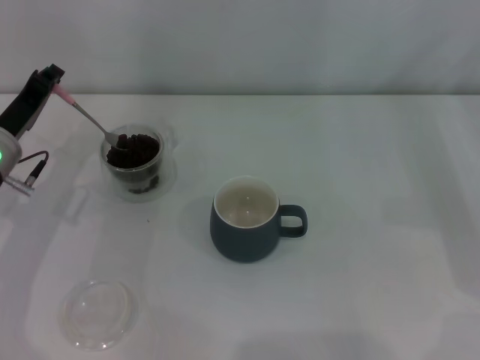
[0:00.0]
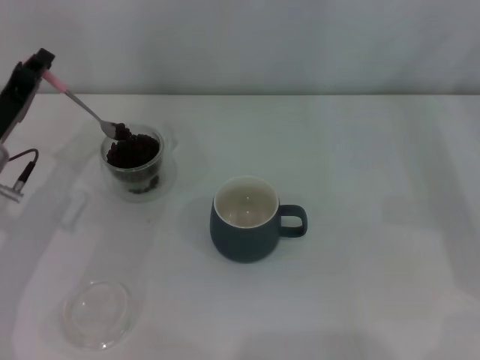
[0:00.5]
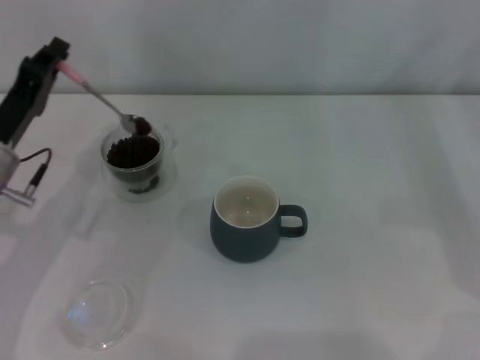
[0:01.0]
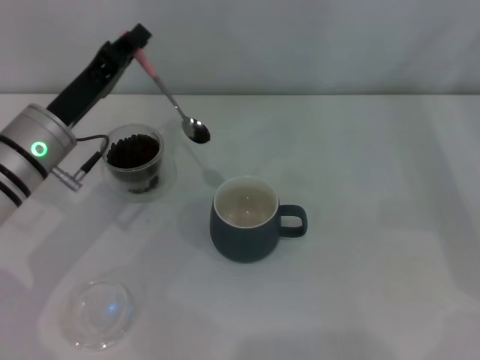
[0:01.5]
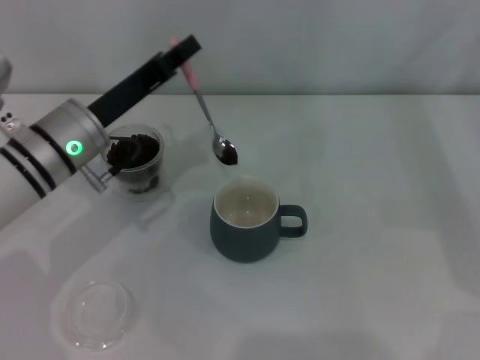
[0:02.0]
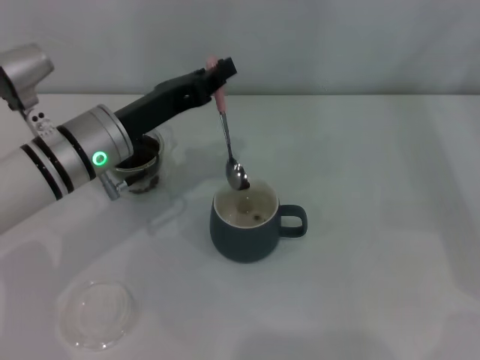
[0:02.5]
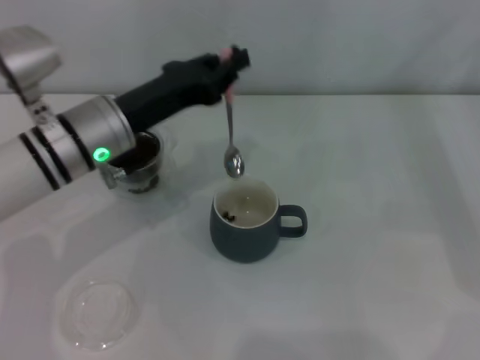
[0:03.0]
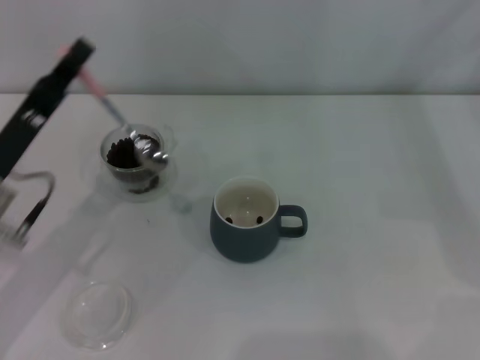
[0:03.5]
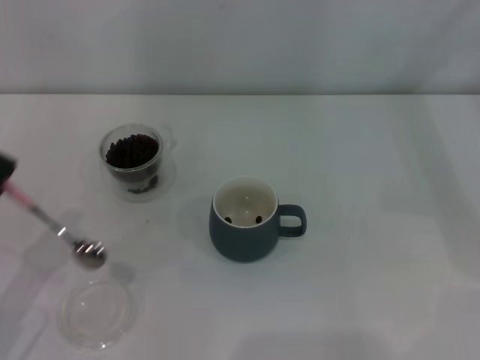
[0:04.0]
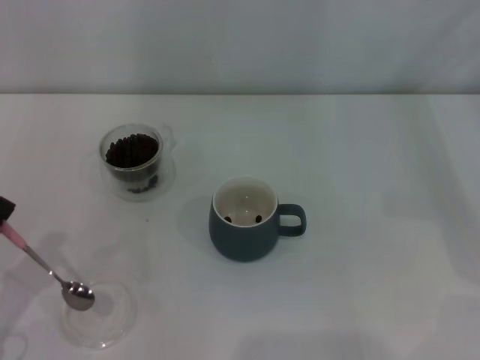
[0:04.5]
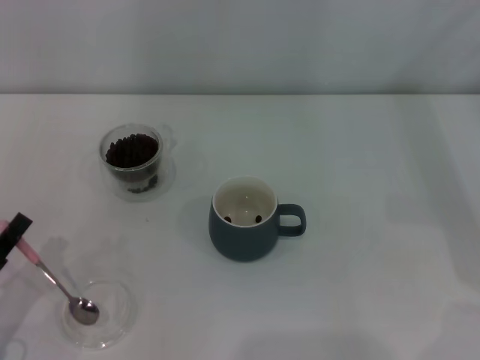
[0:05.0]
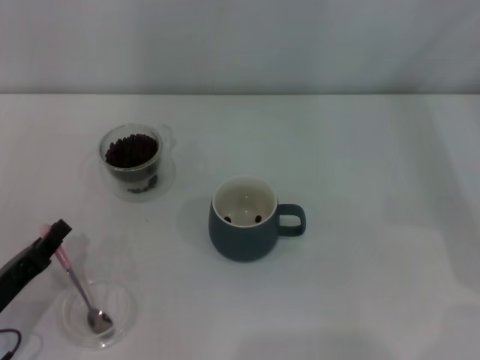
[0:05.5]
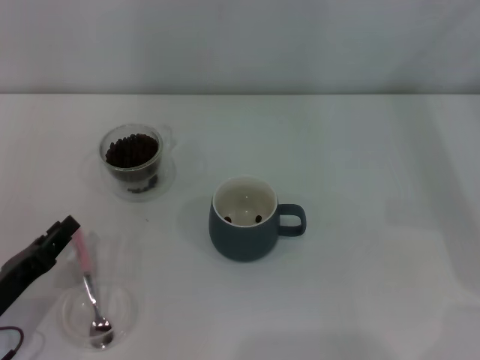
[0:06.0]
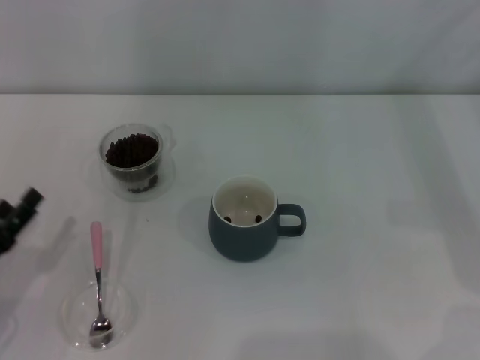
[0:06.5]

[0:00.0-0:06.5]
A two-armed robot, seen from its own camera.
Task of the whole recording: Use a pink spoon to take out the coffee beans from the glass and pour them into the gray cup.
Step, 0:03.5 to 0:06.0: Place the spoon back in its original place with the right gripper.
0:00.0 to 0:02.0: The left gripper heads to the right, covering about 10 cm.
0:02.0 to 0:04.5: The left gripper shifts roughly 25 cm backward, to the left and downward.
0:04.5 to 0:06.5: The left gripper opens its fingers.

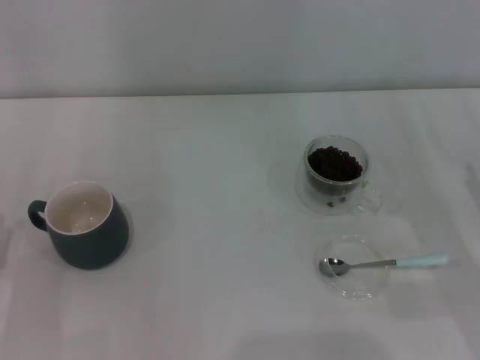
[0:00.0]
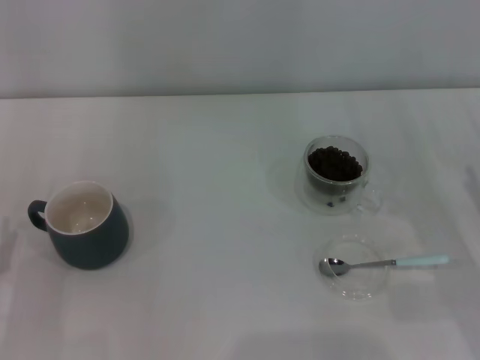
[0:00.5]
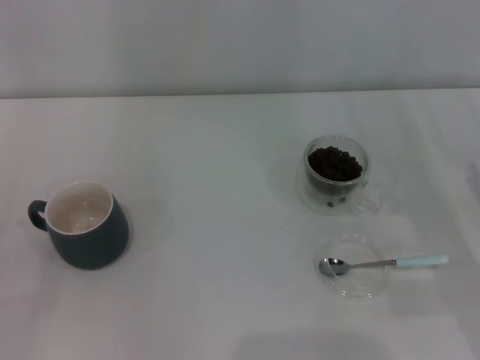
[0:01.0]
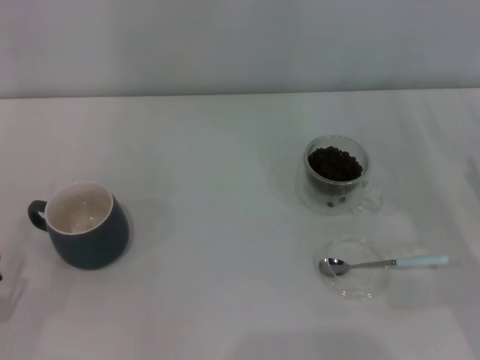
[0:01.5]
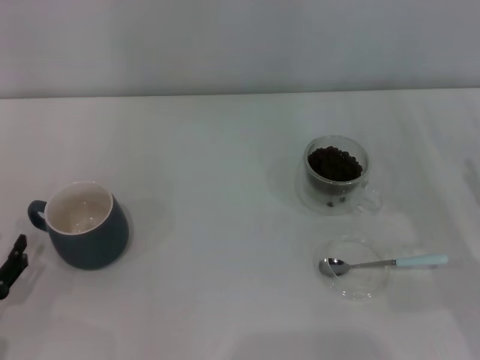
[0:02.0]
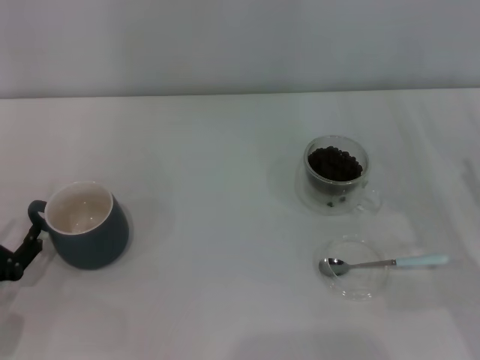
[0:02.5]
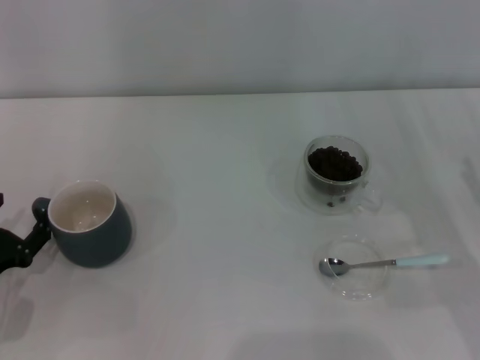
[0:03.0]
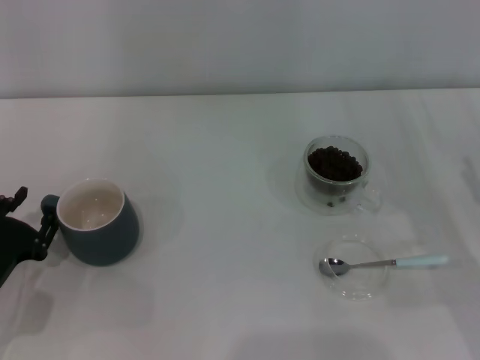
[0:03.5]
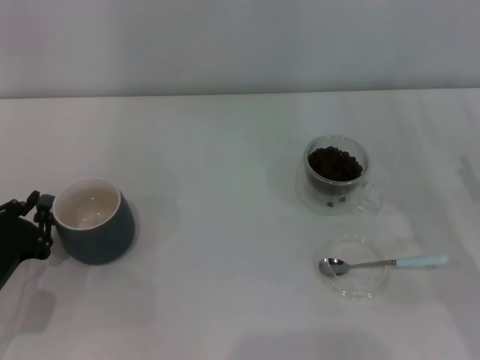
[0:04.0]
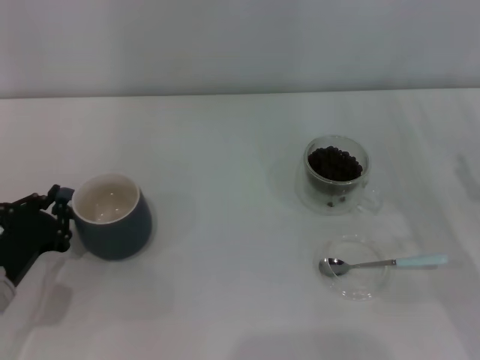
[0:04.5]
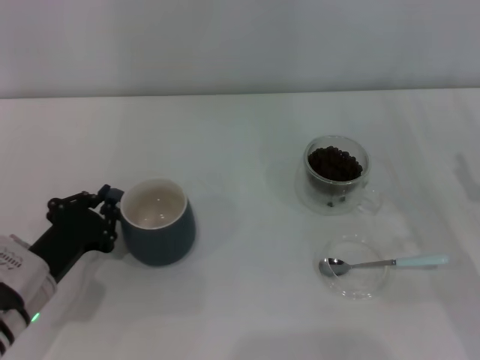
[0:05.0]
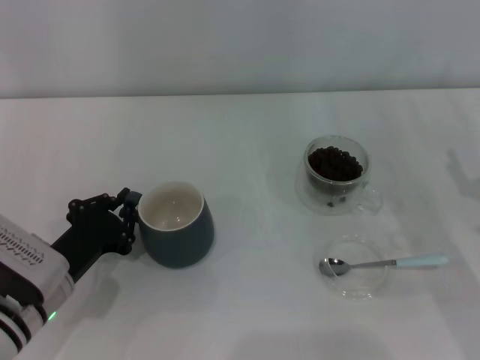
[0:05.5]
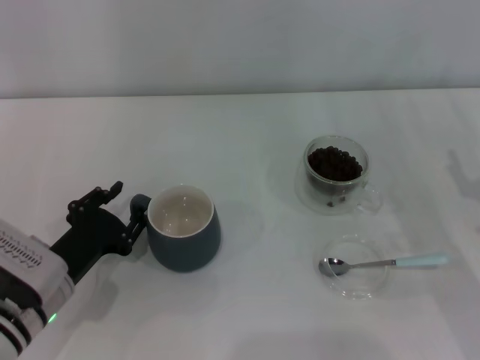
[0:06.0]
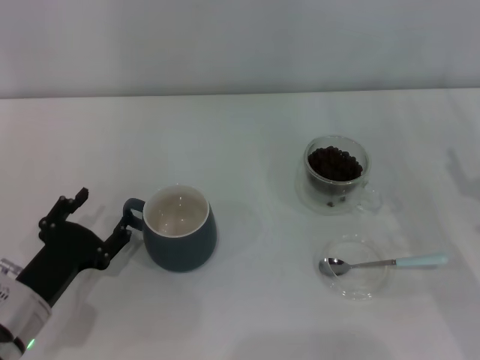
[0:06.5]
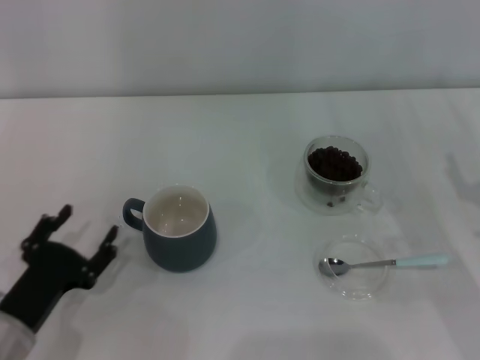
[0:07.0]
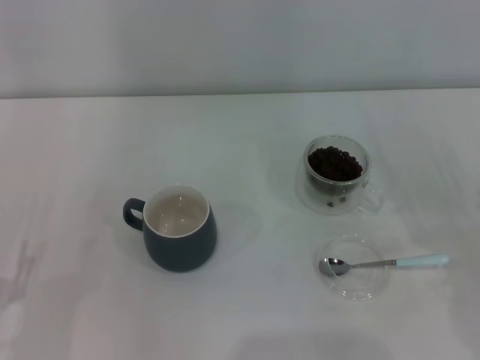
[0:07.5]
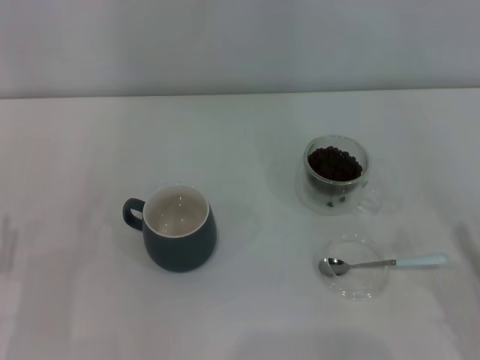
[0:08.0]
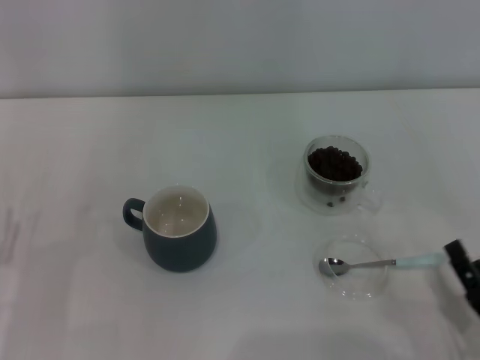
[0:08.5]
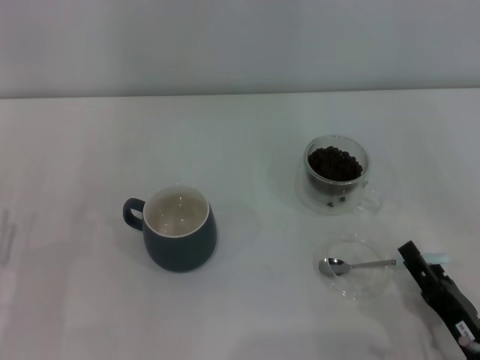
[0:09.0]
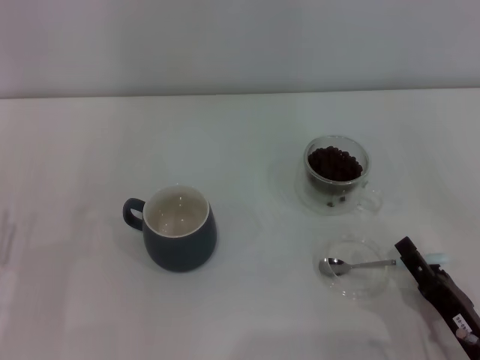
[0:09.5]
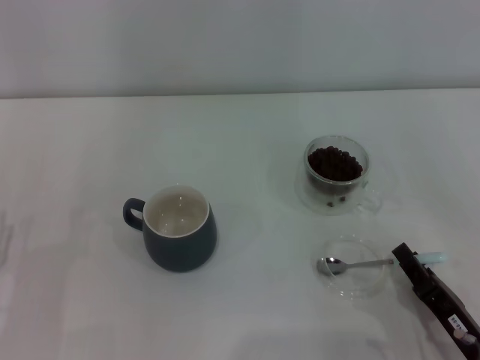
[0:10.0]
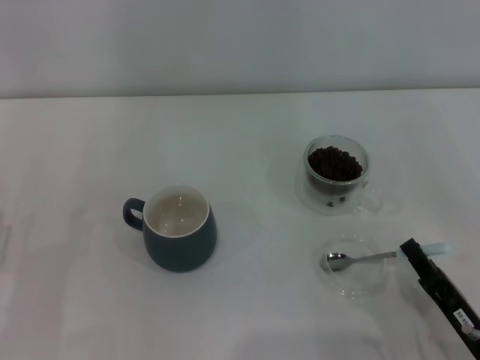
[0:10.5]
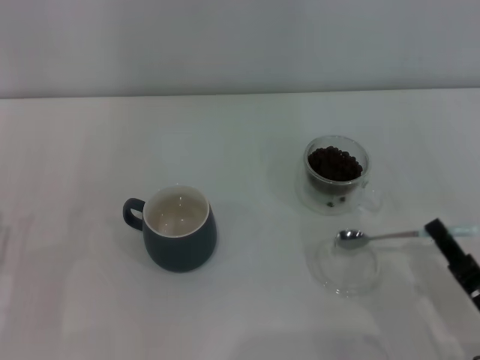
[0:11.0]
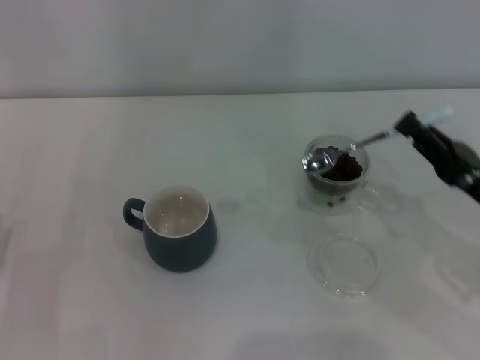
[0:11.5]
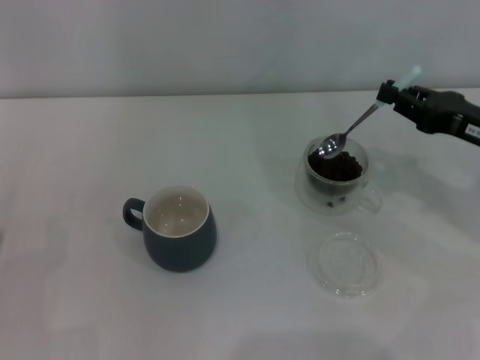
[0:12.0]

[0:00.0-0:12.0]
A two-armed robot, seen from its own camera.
Task of the whole recording: Use a blue spoon to take out the coffee beans from the glass and pour them into the gray cup.
Step, 0:00.0 to 0:07.0: Move the cup to the center of view with the left gripper.
Step, 0:07.5 to 0:11.0: Pick up the spoon with the right gripper.
0:02.0 to 0:04.0: The left gripper goes about 5 cm forward, and closes its fingers.
0:04.0 to 0:06.0: The left gripper heads to the right, covering roughly 5 cm.
0:06.0 to 0:08.0: The left gripper shifts some 10 cm to the left and backward, and opens; the right gripper shifts some 10 cm backward.
0:08.0 to 0:10.0: The right gripper travels to the left by roughly 10 cm, and closes up.
0:10.0 to 0:12.0: The right gripper shifts approximately 25 cm forward, upward and to the right, and closes its fingers.

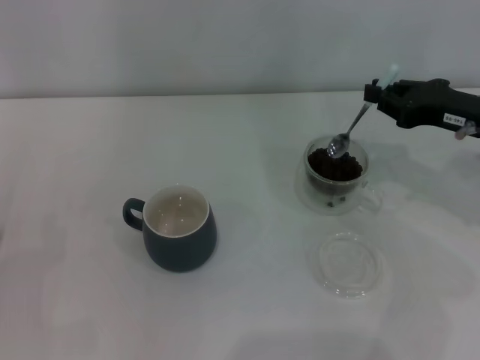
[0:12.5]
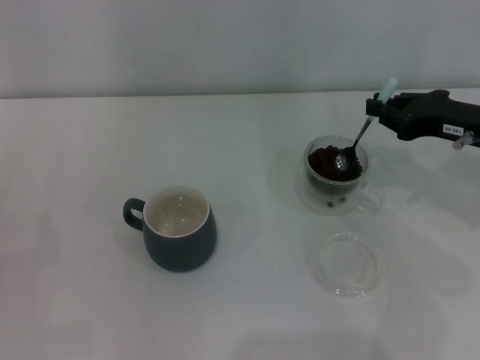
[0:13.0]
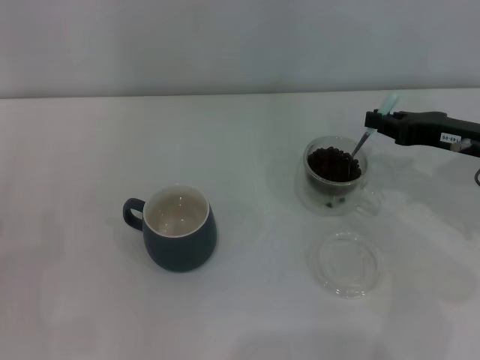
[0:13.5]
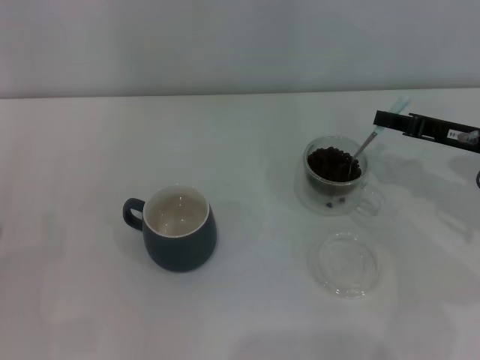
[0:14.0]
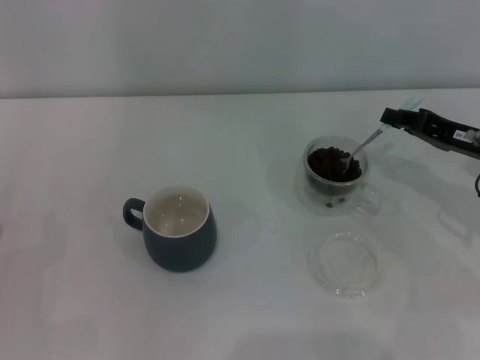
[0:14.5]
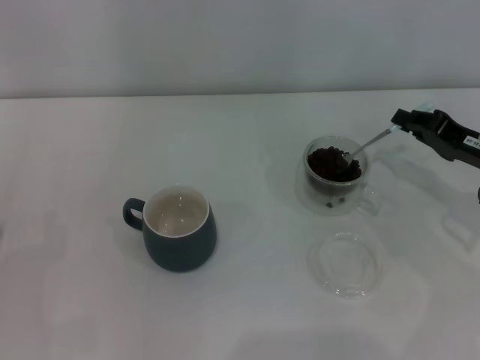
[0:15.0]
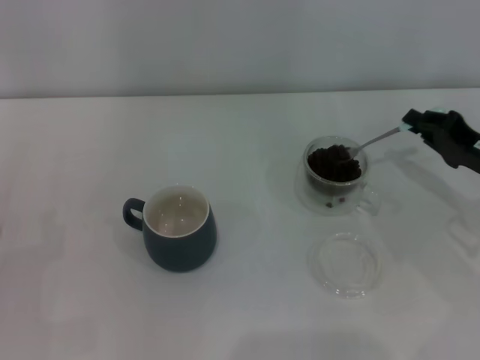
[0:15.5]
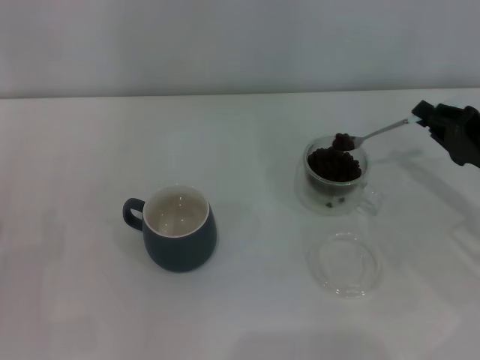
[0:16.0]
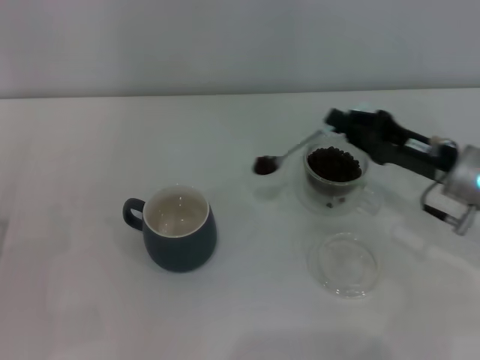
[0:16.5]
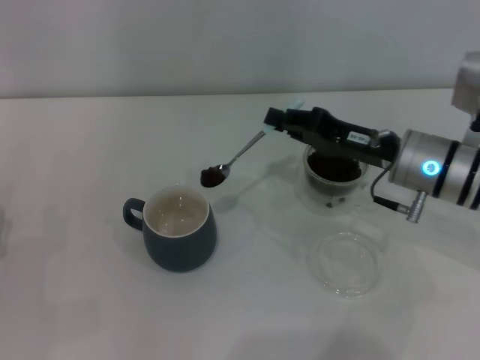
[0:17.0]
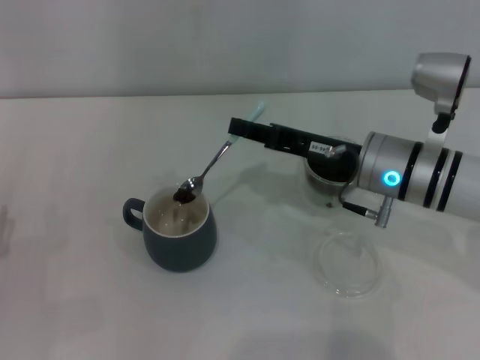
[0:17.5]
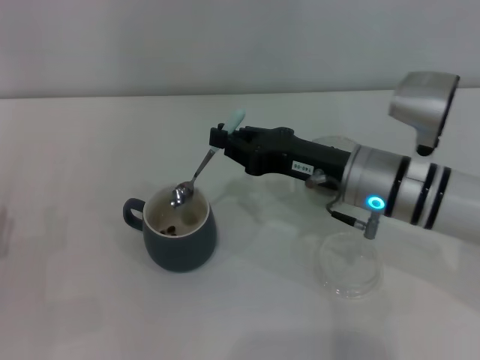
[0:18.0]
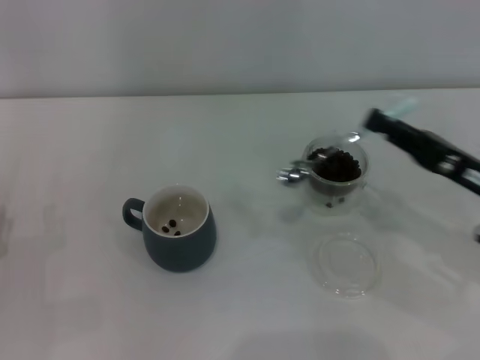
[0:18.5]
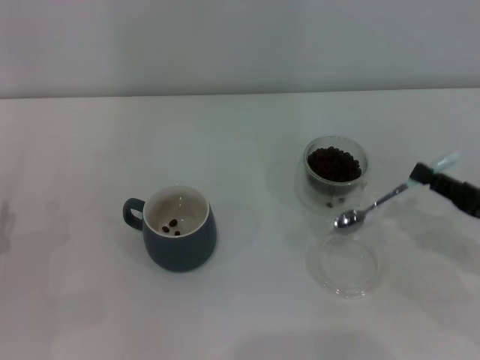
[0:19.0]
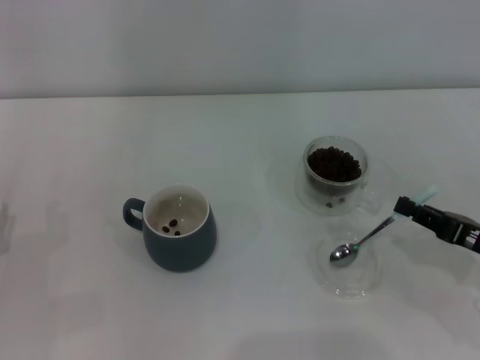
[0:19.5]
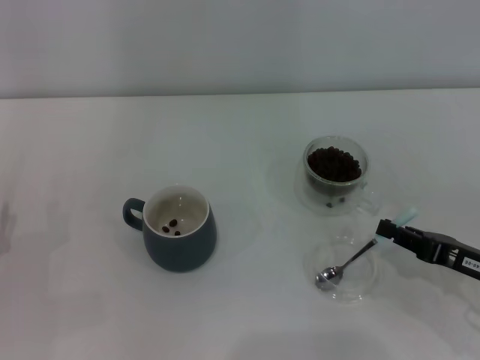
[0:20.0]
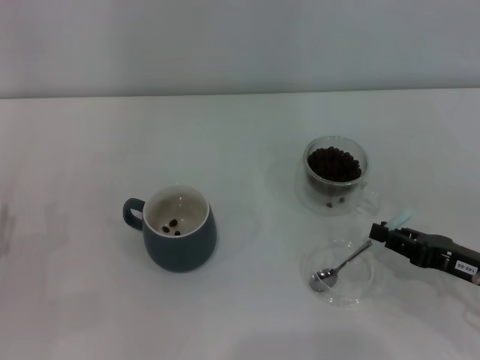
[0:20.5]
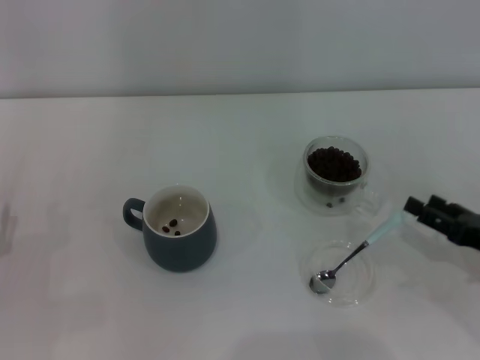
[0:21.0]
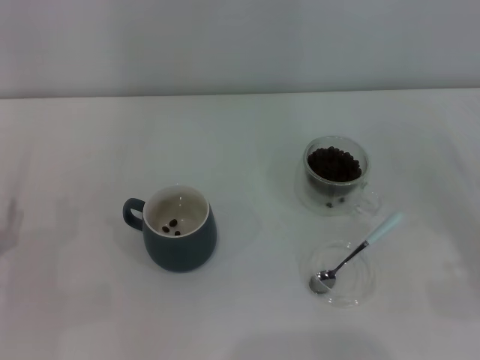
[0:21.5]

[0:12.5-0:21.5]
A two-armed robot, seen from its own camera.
Task of the whole recording: Use a blue spoon to take out the coffee beans from the glass and pour them into the gray cup.
Step, 0:12.5 to 0:18.0: Scoop a spoonful of beans into the cup with the right gripper.
Step, 0:18.5 to 0:21.0: Place the spoon back in its original place with the right gripper.
0:14.5 to 0:17.0: The right gripper goes roughly 10 cm to the left.
0:17.0 to 0:19.5: The right gripper moves to the right, backward and downward, some 15 cm.
0:19.5 to 0:21.5: The right gripper goes some 5 cm to the right, and opens.
